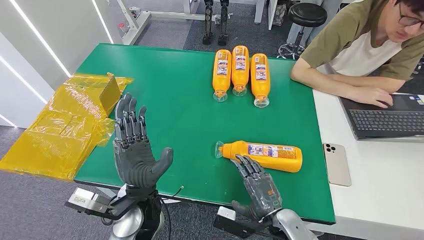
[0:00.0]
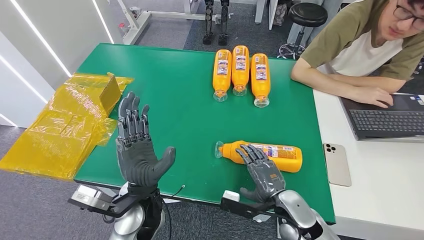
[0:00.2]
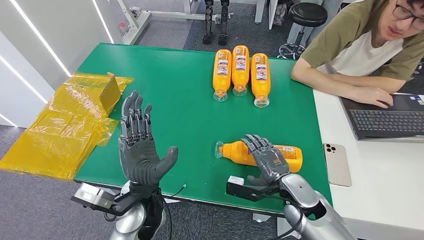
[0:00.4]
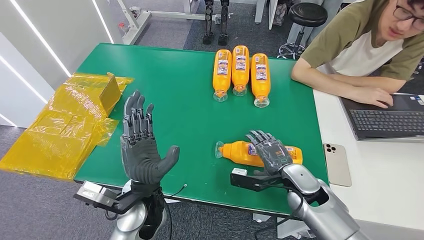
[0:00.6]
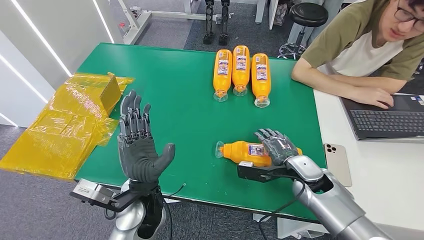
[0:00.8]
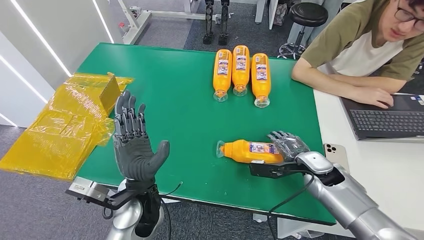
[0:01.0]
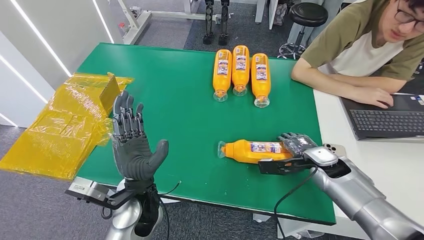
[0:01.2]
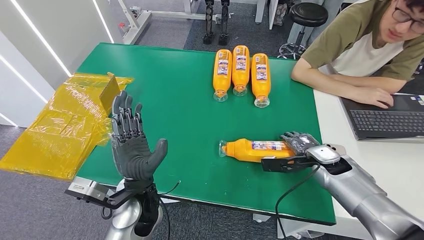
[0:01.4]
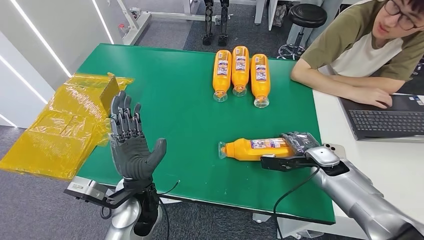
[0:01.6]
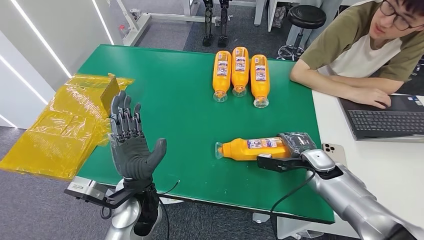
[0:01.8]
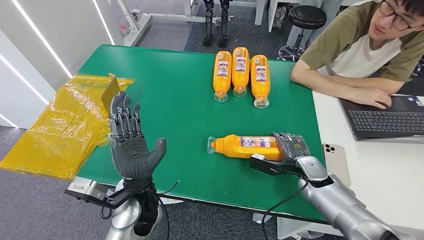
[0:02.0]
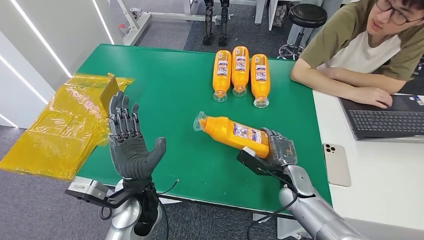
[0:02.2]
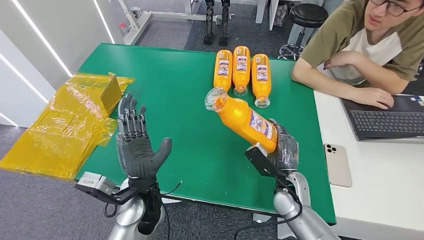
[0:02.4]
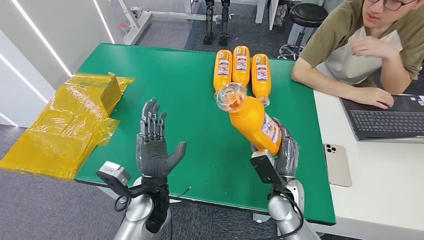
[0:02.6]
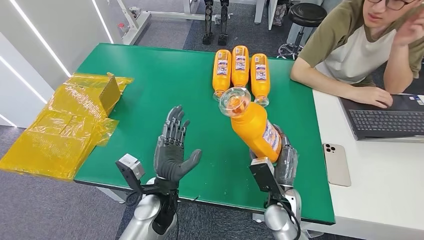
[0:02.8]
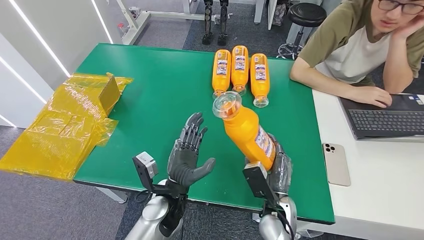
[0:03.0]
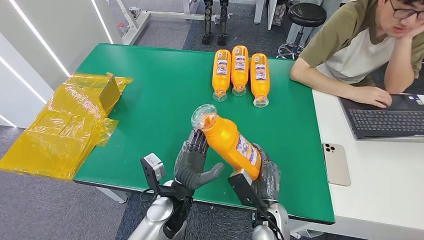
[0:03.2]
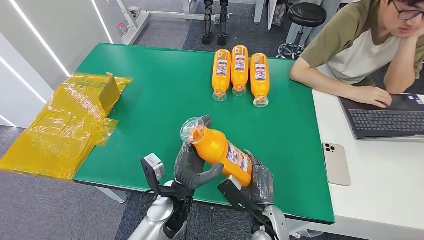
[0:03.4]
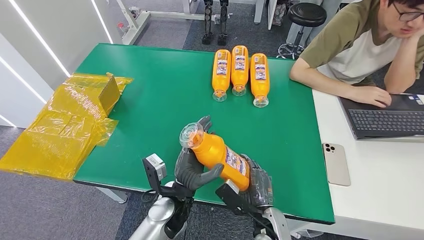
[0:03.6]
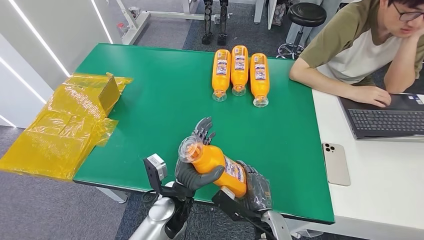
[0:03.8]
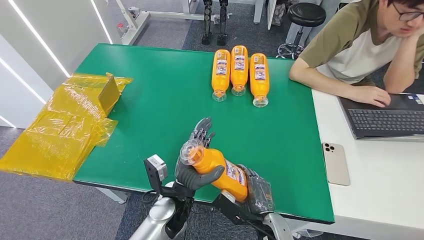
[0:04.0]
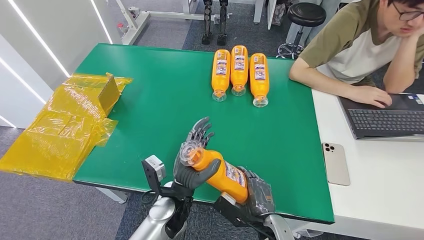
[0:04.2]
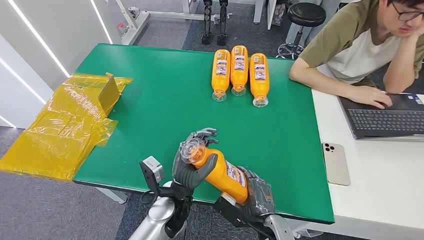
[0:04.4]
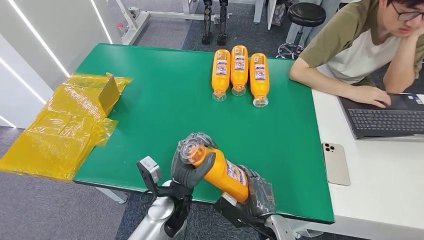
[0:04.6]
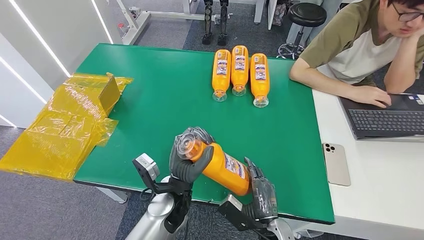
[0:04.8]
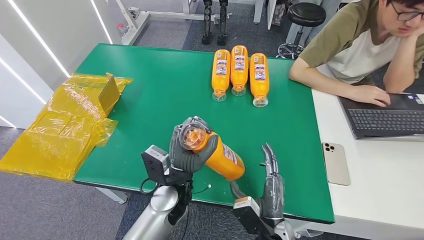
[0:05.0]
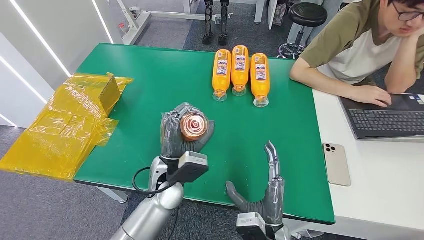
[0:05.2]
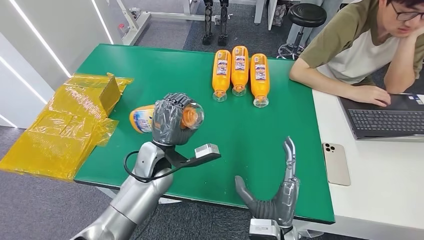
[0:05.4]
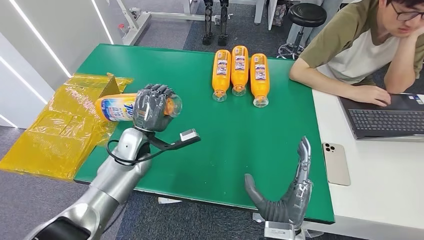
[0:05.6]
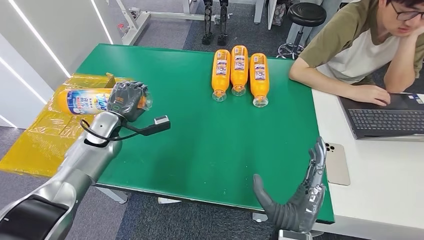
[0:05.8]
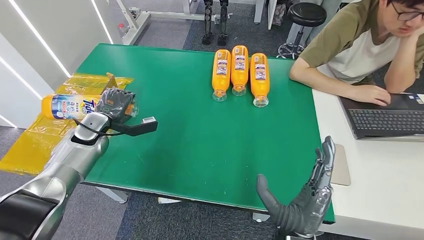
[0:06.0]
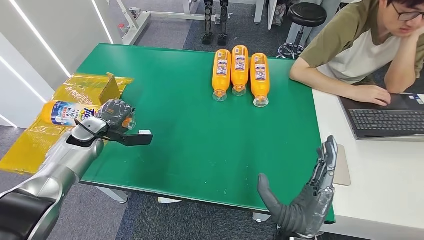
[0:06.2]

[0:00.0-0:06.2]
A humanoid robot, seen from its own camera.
Step, 0:00.0 to 0:03.2: Pick up the bottle from the table.
Step, 0:03.4 to 0:06.2: Turn the bottle to the front side.
0:04.6 to 0:06.2: The left hand goes about 35 cm to the left and forward; the right hand goes approximately 10 cm upward.
